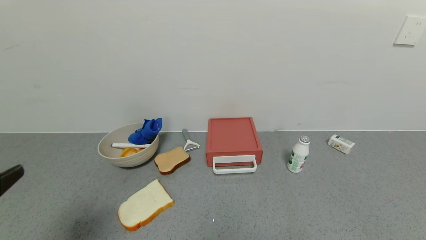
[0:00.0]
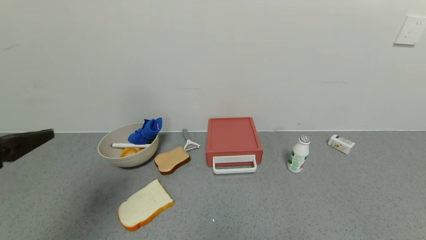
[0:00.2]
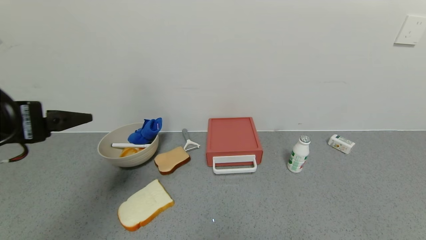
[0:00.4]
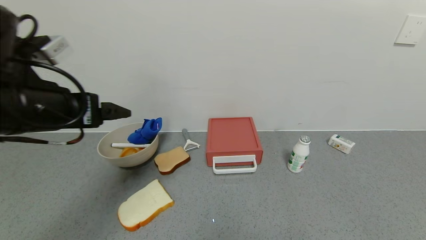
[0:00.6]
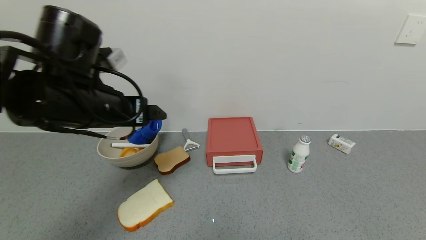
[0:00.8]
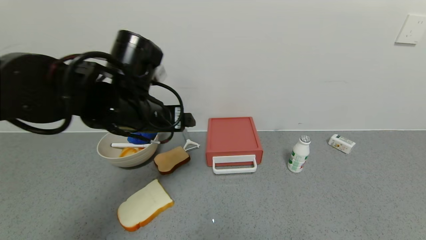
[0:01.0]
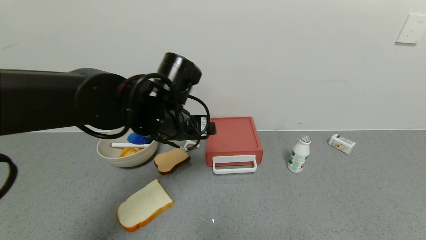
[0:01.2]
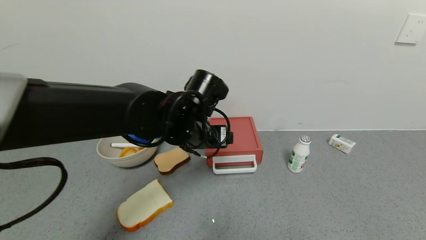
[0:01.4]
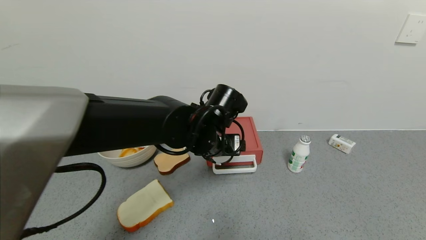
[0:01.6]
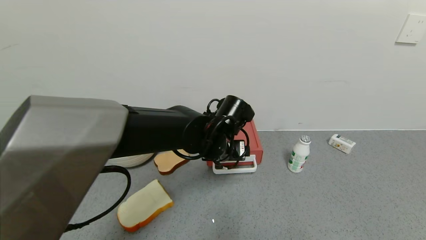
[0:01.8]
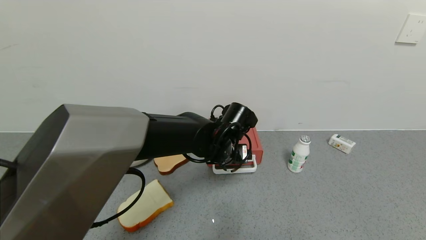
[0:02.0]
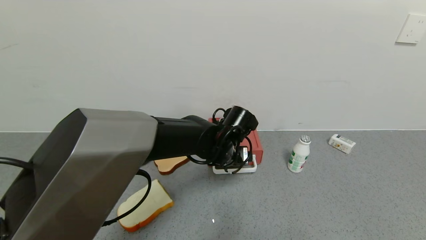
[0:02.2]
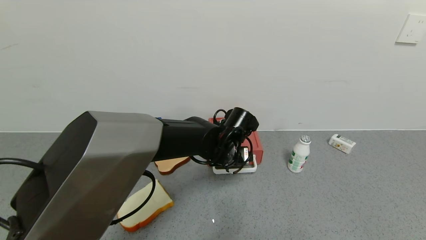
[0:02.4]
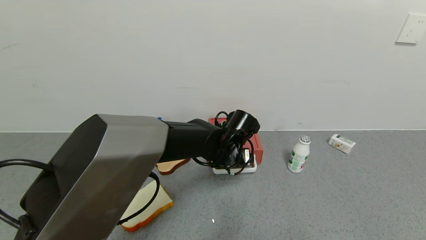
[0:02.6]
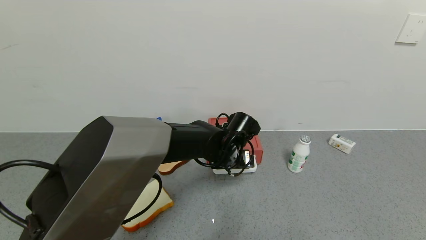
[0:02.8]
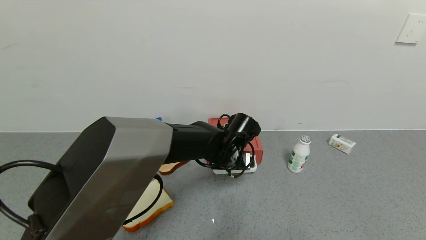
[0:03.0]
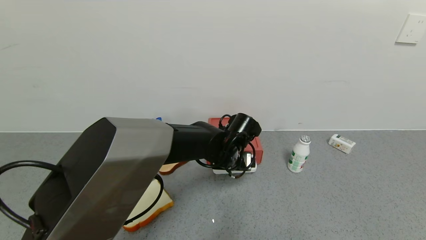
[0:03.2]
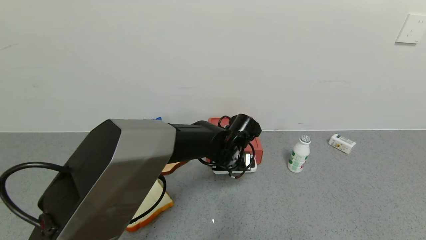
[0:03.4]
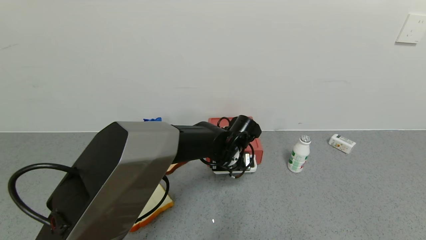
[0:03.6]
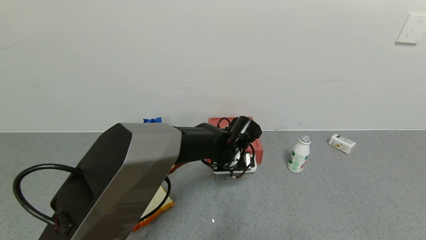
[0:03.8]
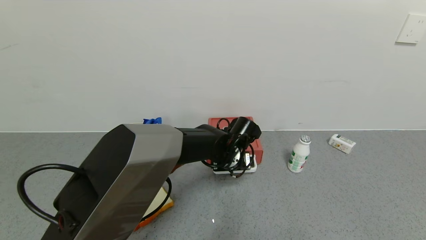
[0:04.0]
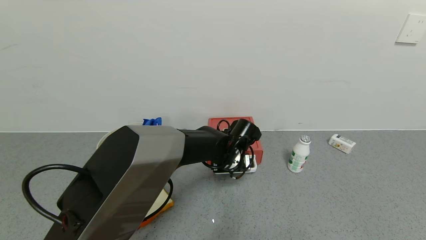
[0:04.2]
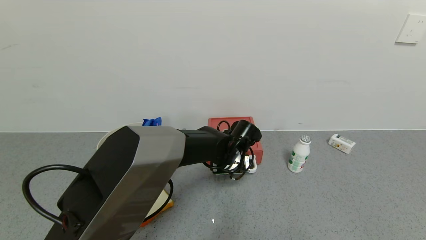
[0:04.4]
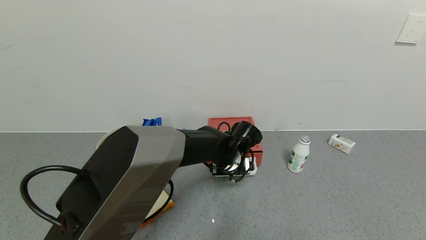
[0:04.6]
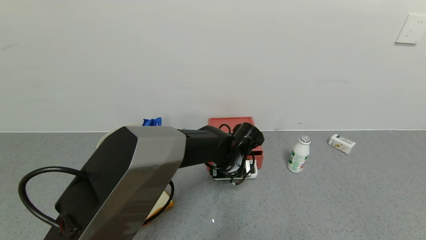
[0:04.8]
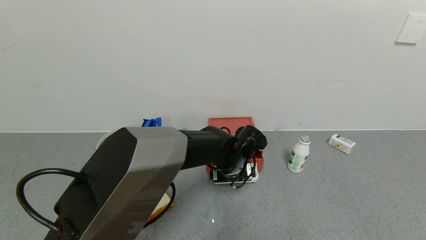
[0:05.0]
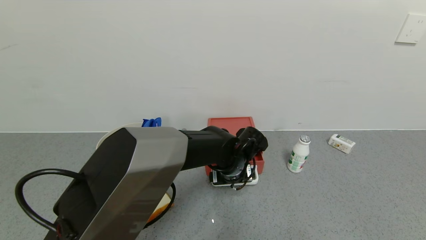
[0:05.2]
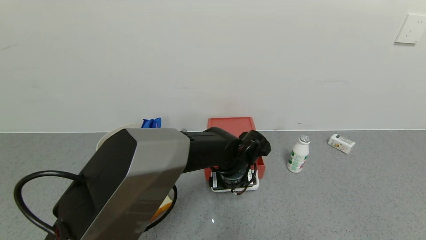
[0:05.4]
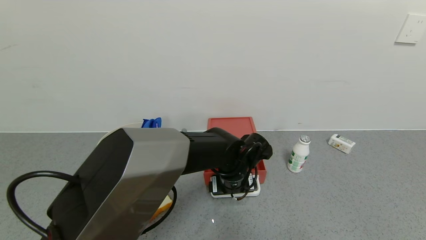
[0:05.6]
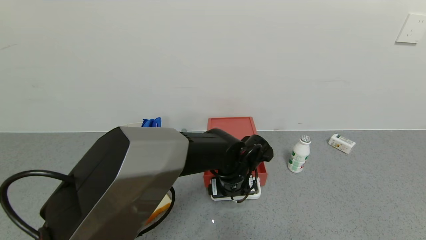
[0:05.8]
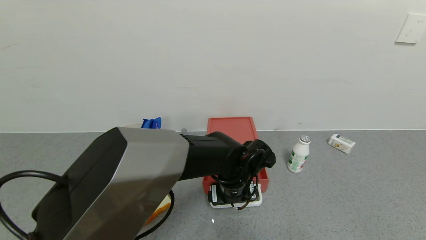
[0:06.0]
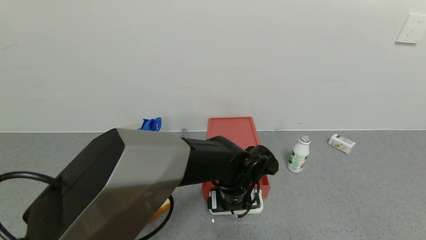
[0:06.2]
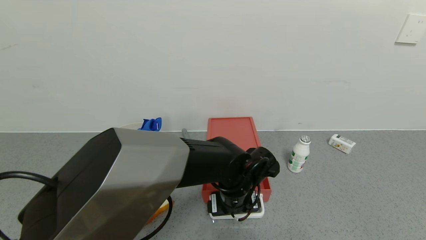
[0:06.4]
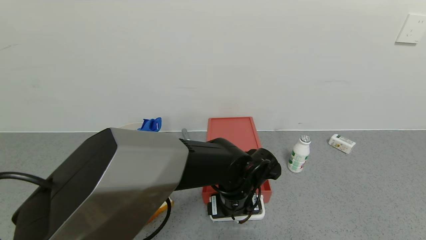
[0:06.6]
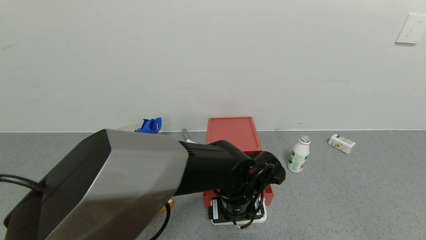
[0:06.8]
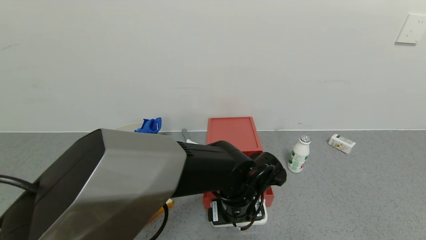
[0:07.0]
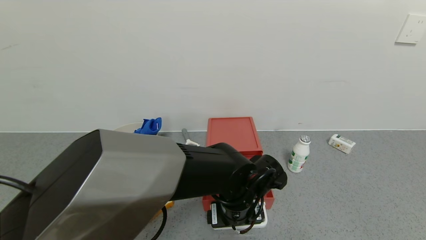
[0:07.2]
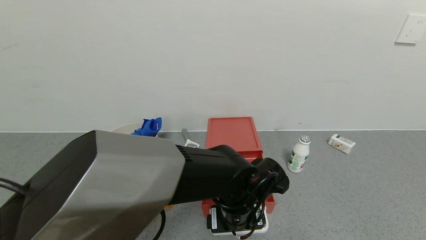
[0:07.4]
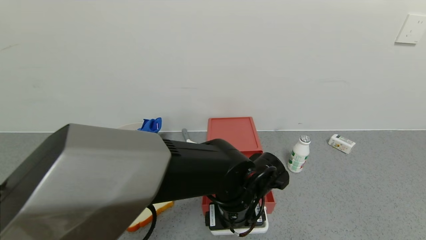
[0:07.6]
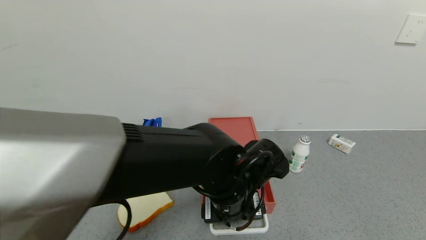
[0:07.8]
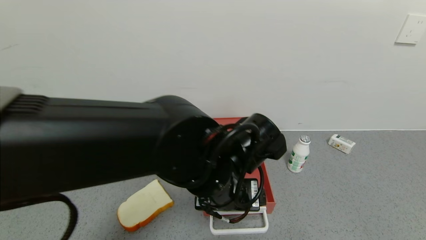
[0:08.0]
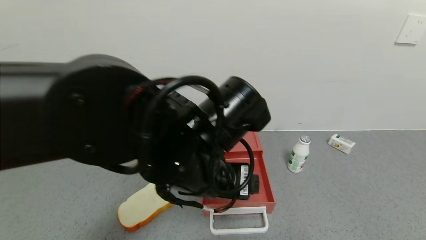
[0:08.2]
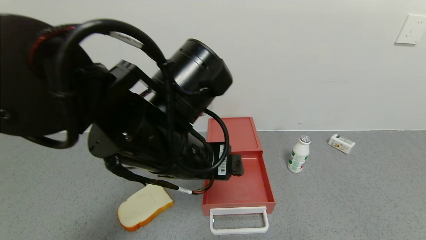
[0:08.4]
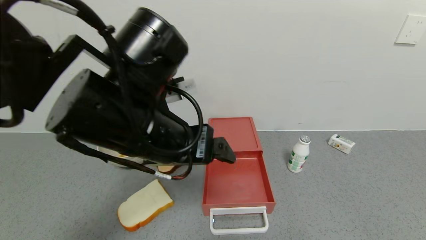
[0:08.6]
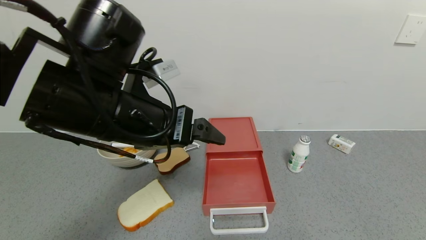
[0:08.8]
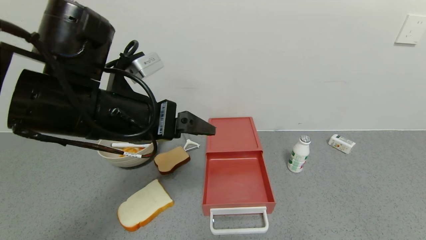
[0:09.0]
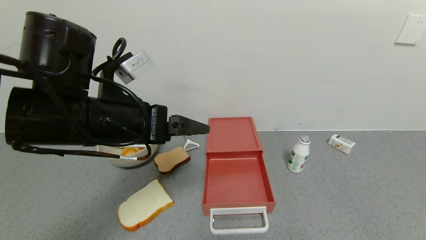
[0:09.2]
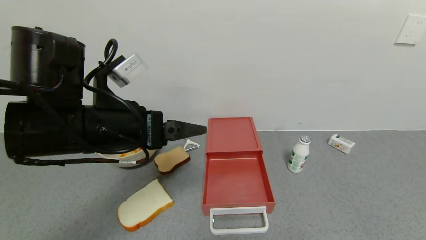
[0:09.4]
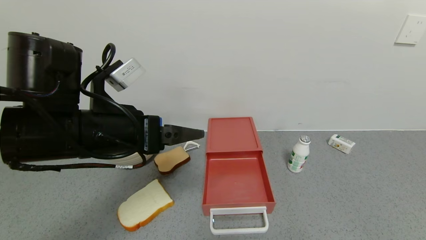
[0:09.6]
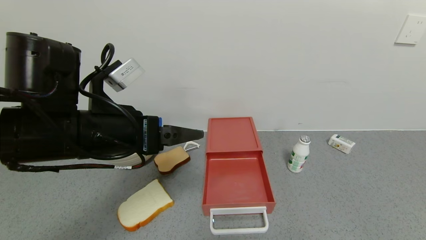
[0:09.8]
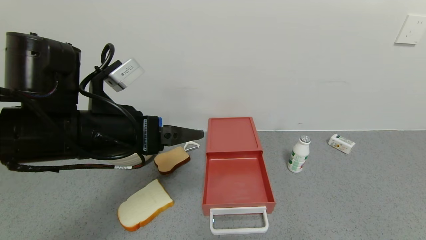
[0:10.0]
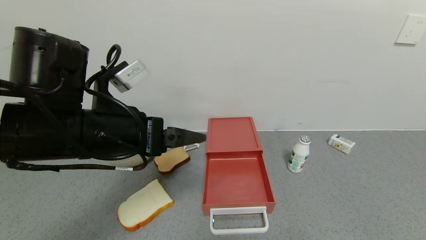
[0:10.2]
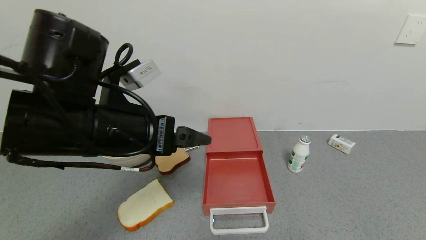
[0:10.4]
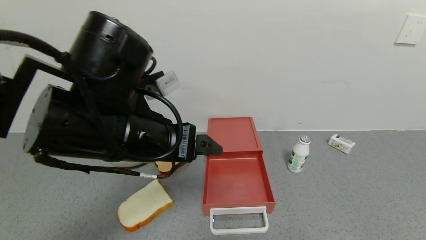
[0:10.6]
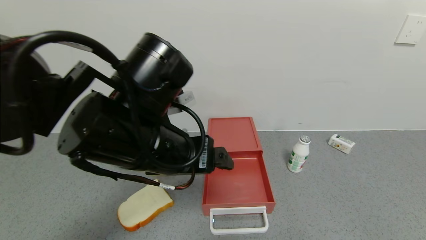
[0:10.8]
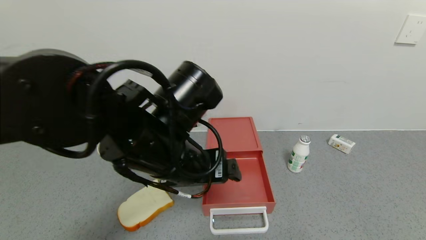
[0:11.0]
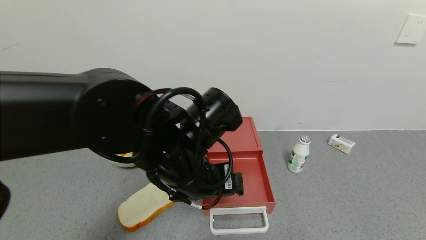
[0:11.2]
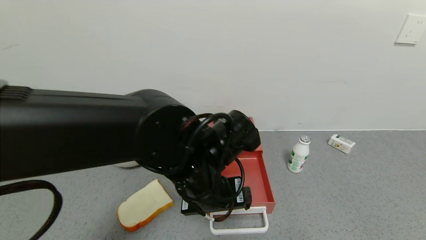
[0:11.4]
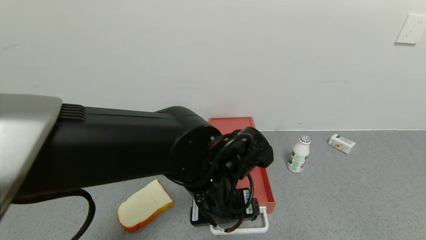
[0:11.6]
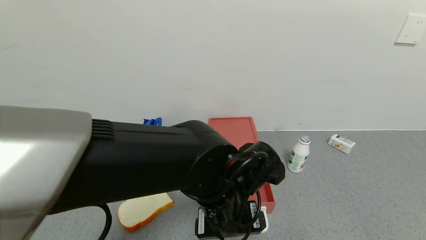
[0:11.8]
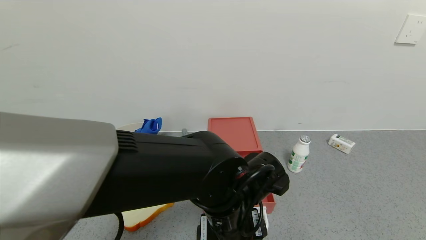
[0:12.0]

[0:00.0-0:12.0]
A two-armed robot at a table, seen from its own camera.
Task of the whole recording: use the gripper to open the drawer and close the red drawer.
Step, 0:00.0 to 0:08.0: Open the red drawer with left gripper.
0:00.0 to 0:01.6: The left gripper moves to the right and forward, approximately 35 cm.
0:01.6 to 0:03.0: The left gripper heads downward, covering roughly 5 cm.
0:03.0 to 0:04.4: The grippers move only a little.
0:04.4 to 0:06.0: The left gripper shifts some 5 cm backward.
0:06.0 to 0:07.6: The left gripper is displaced backward by some 5 cm.
0:07.6 to 0:09.0: The left gripper travels to the left and upward by about 25 cm.
0:09.0 to 0:10.4: The grippers stay close to where they were, moving slightly.
0:10.4 to 0:12.0: The left gripper shifts some 20 cm to the right and downward.

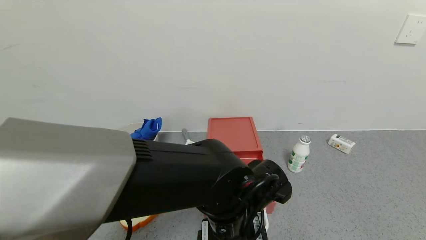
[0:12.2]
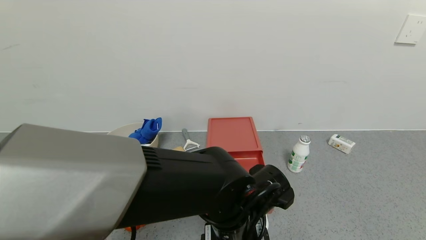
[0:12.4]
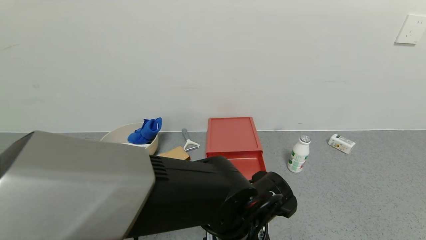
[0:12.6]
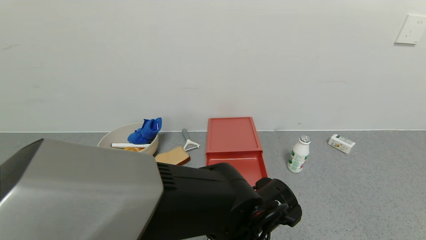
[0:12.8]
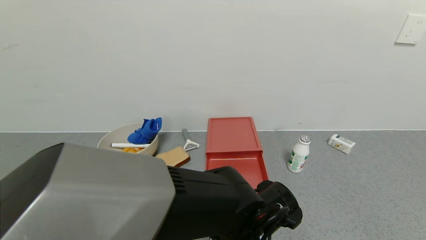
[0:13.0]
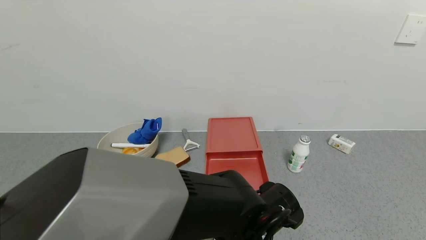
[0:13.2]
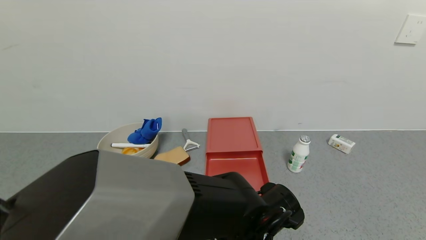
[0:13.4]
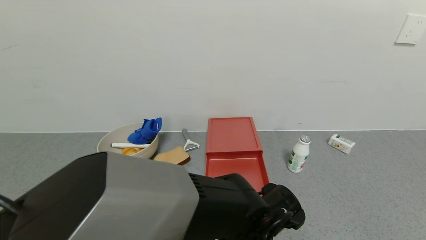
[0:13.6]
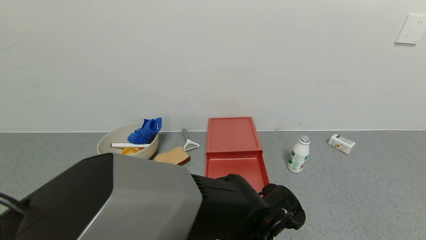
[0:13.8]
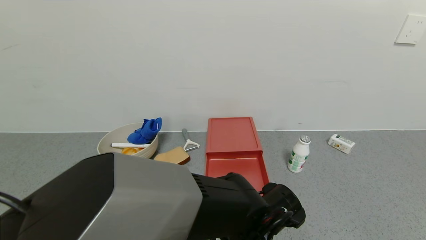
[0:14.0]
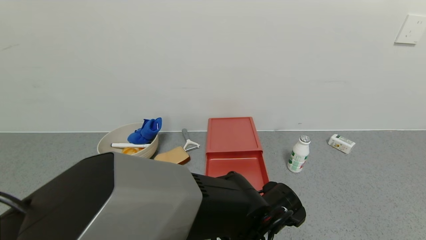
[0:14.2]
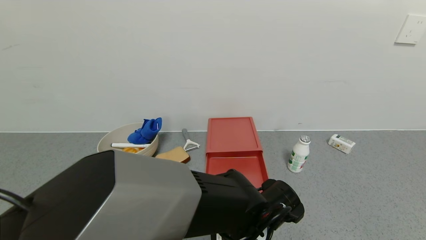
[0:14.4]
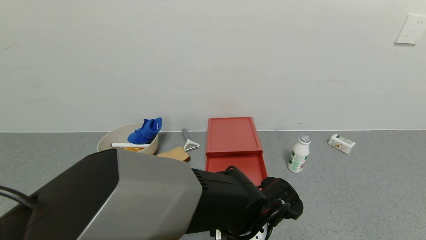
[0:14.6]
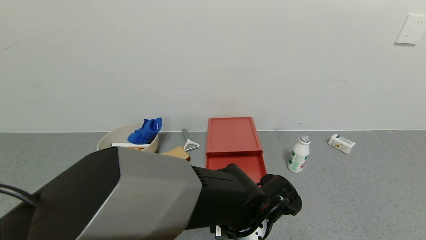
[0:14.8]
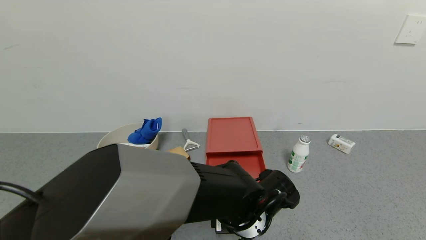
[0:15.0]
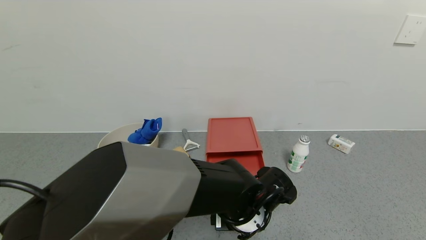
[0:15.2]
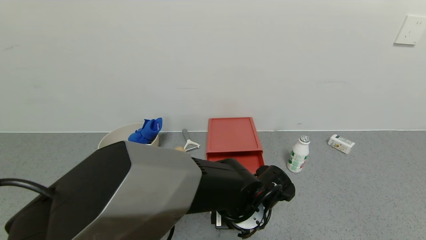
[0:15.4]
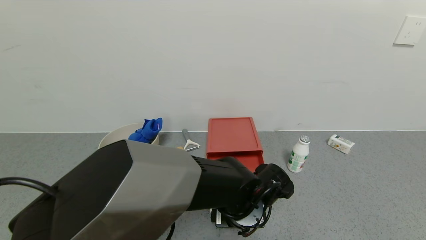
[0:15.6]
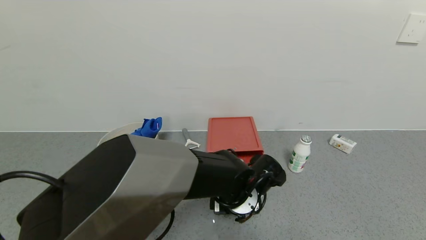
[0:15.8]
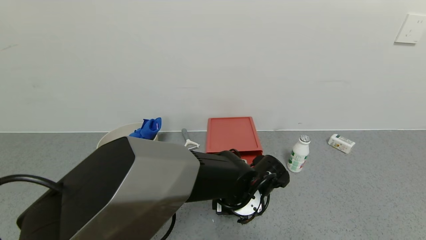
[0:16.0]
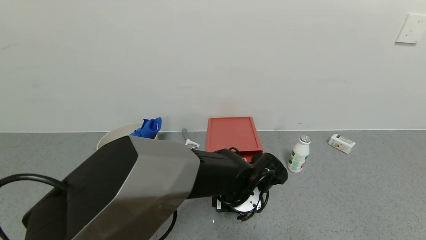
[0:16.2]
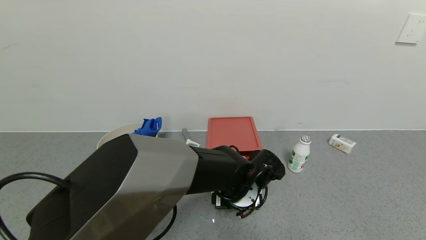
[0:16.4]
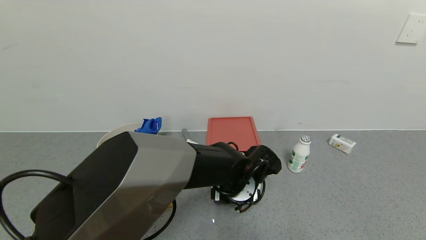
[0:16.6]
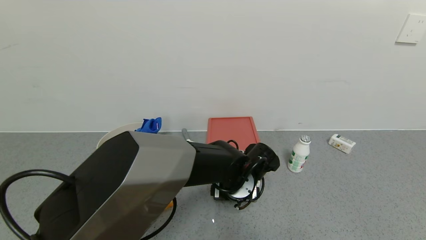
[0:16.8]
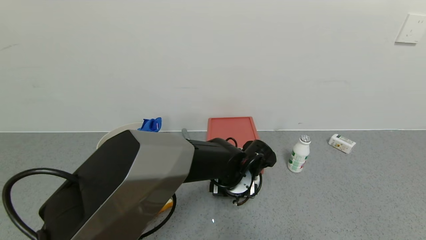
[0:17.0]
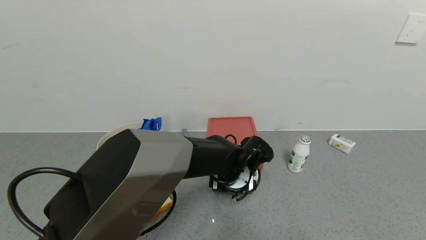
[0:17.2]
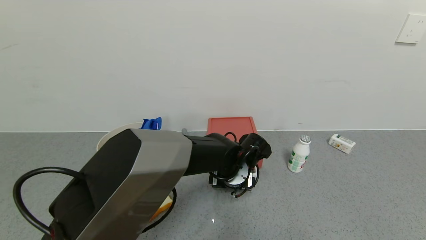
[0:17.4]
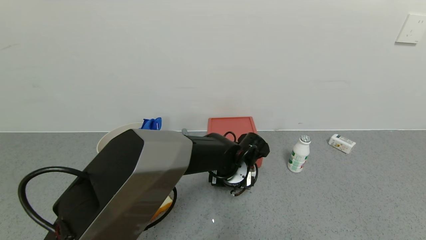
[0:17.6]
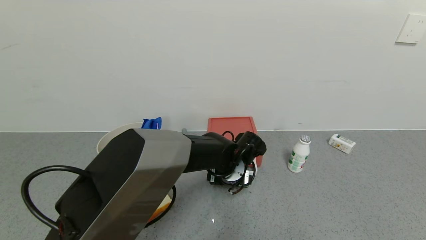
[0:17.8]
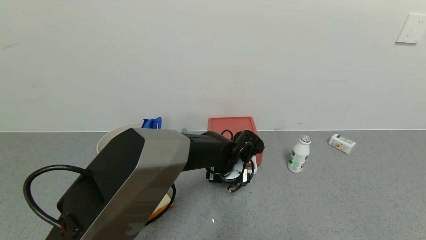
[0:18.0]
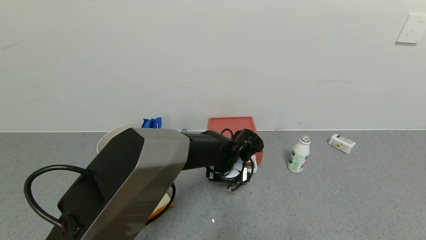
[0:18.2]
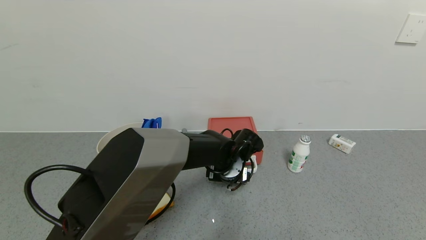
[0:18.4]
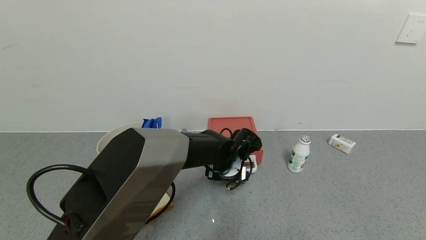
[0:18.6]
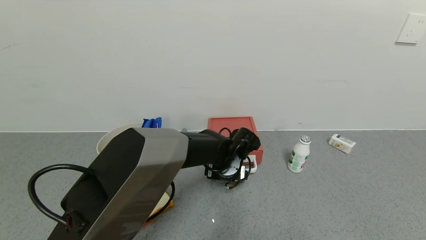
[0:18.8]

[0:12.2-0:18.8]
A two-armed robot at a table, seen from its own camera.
Task of the whole recording: use the gripper to open the drawer and close the red drawer.
0:12.2 to 0:13.8: The left gripper moves downward, approximately 5 cm.
0:13.8 to 0:15.4: The grippers make only small movements.
0:15.4 to 0:17.2: The left gripper goes roughly 5 cm forward.
0:17.2 to 0:18.8: There are only small adjustments of the grippers.
